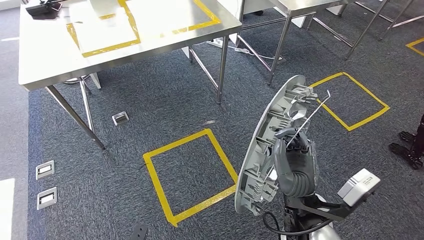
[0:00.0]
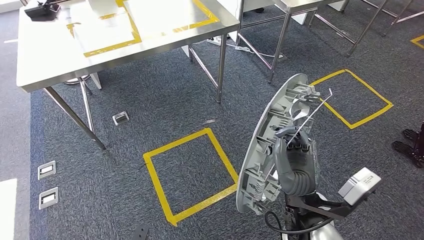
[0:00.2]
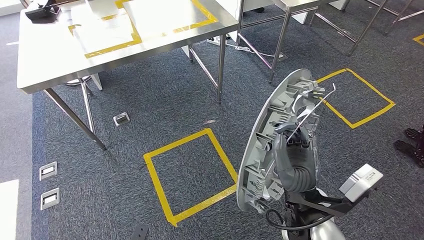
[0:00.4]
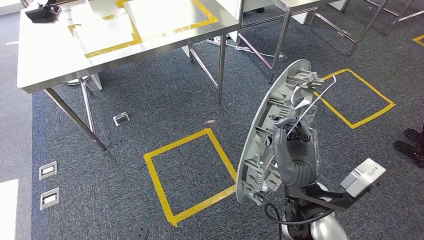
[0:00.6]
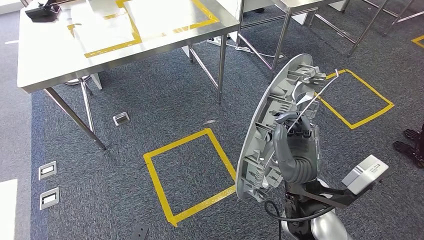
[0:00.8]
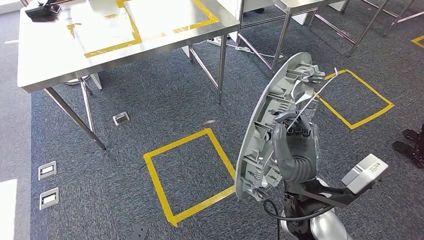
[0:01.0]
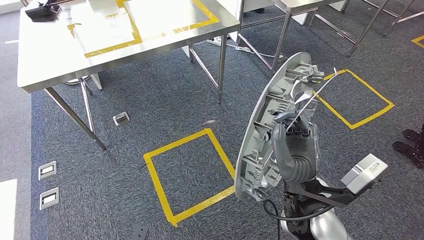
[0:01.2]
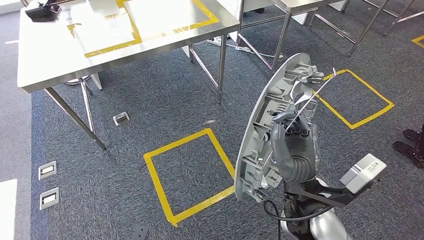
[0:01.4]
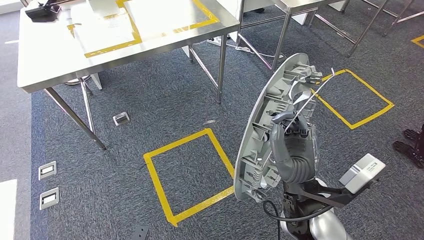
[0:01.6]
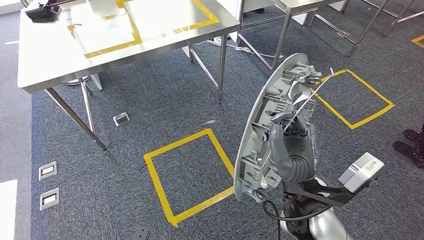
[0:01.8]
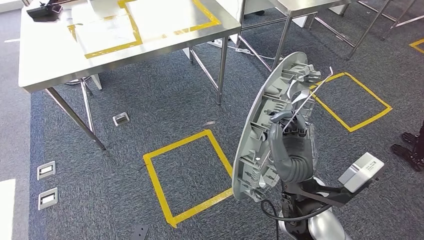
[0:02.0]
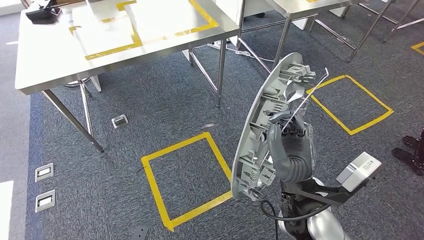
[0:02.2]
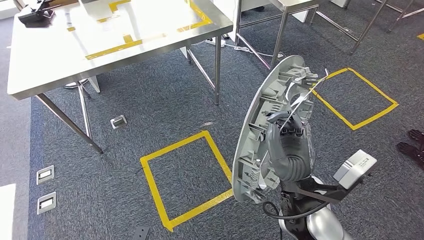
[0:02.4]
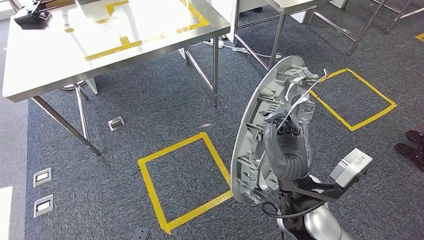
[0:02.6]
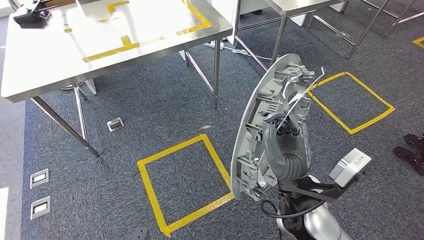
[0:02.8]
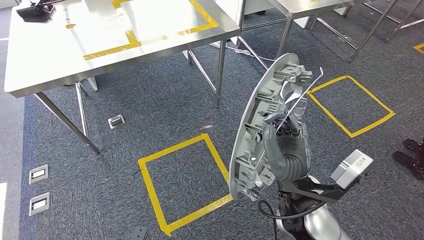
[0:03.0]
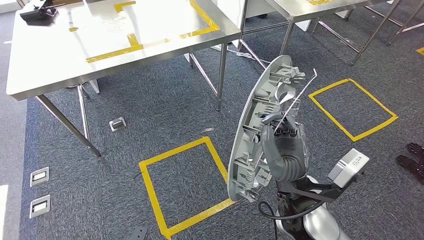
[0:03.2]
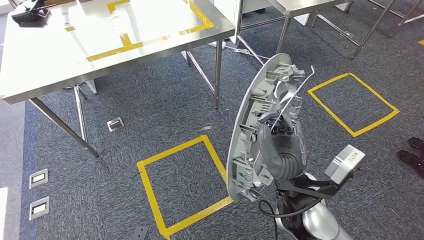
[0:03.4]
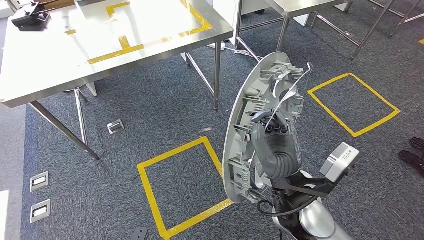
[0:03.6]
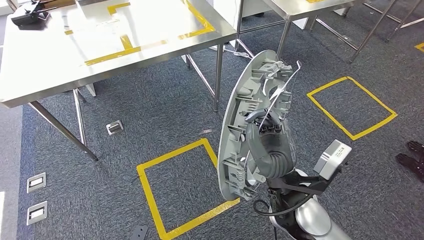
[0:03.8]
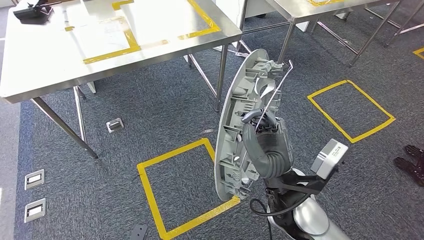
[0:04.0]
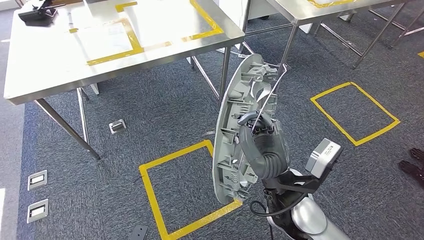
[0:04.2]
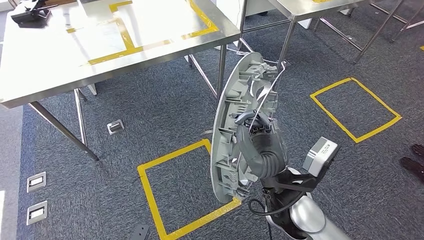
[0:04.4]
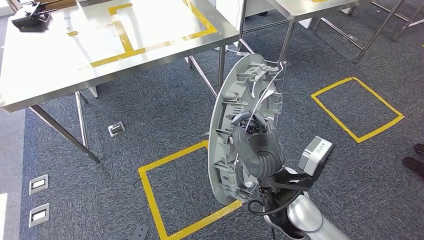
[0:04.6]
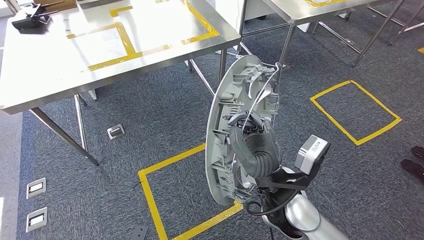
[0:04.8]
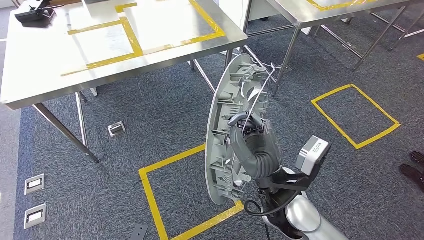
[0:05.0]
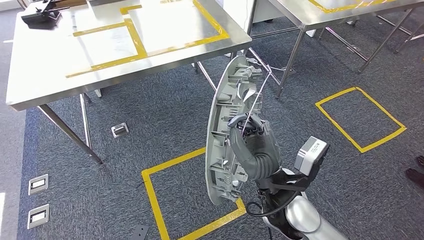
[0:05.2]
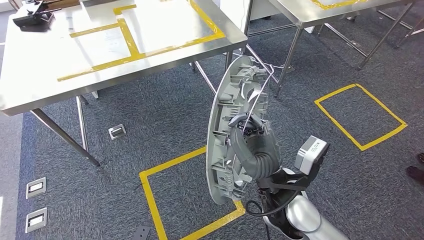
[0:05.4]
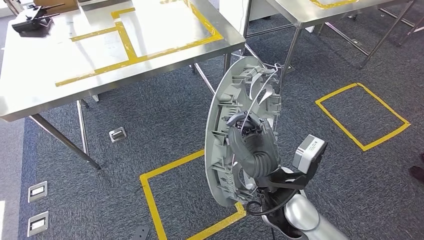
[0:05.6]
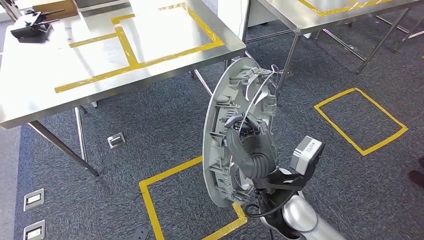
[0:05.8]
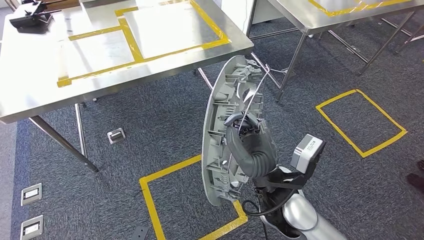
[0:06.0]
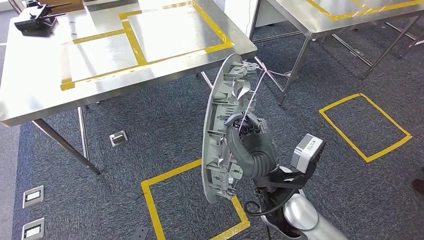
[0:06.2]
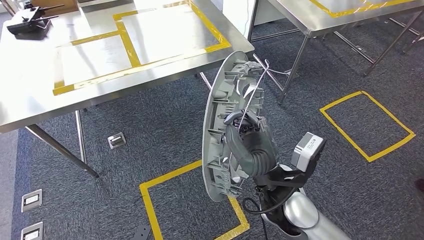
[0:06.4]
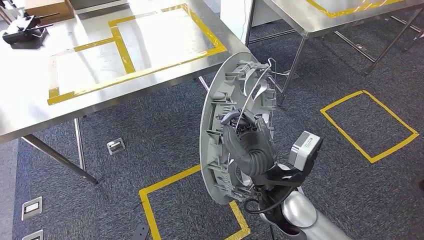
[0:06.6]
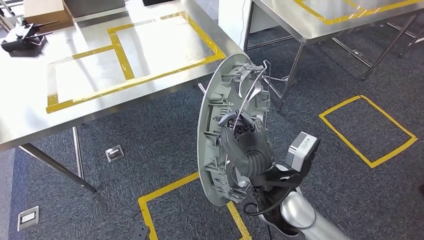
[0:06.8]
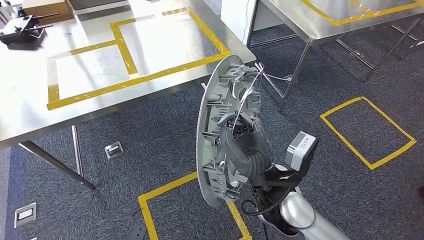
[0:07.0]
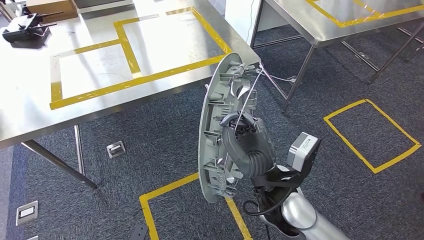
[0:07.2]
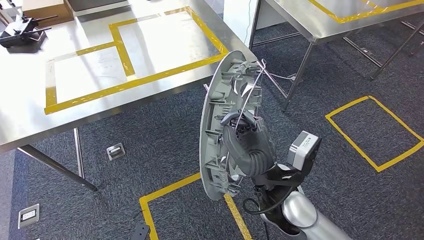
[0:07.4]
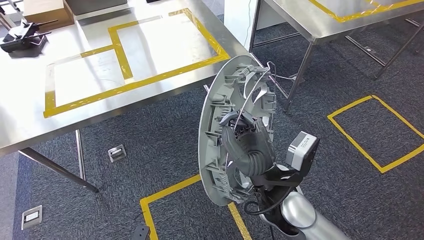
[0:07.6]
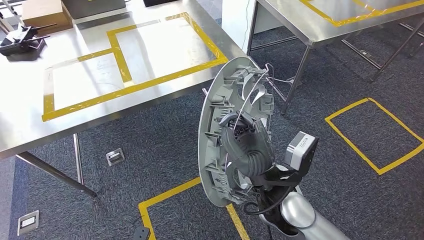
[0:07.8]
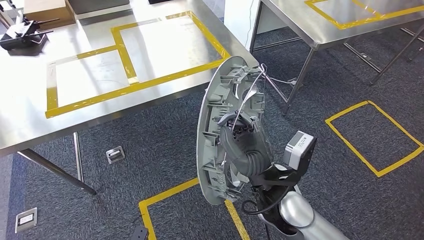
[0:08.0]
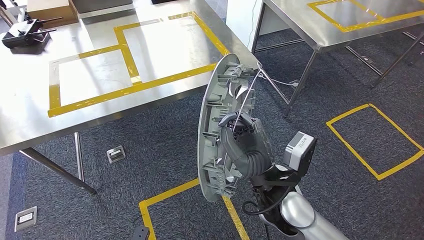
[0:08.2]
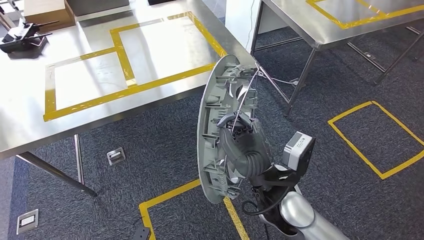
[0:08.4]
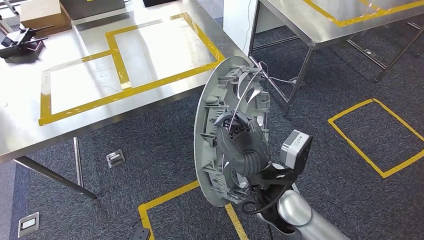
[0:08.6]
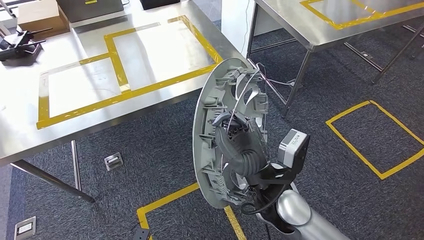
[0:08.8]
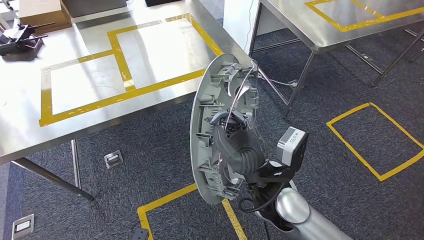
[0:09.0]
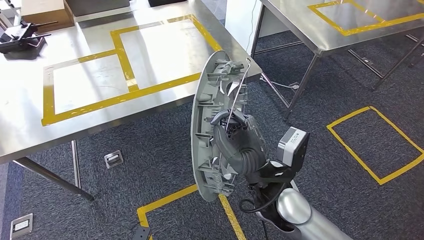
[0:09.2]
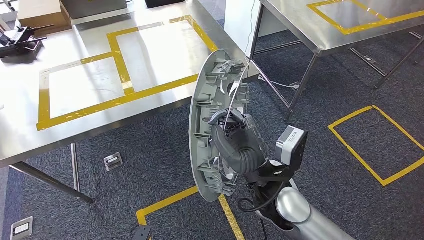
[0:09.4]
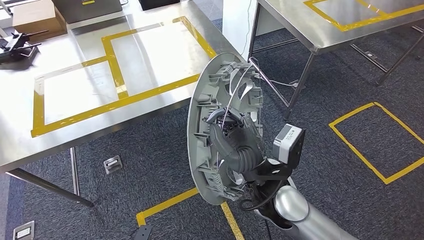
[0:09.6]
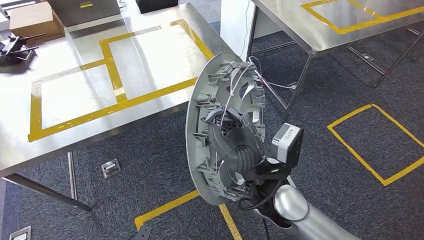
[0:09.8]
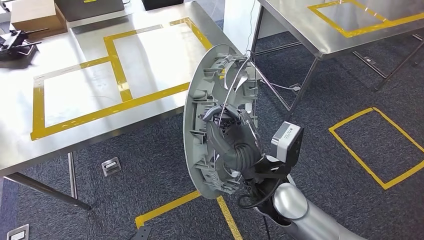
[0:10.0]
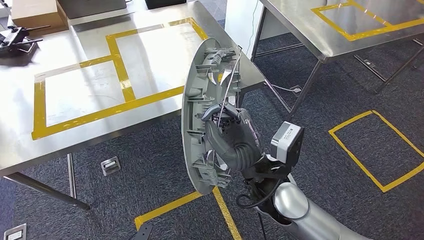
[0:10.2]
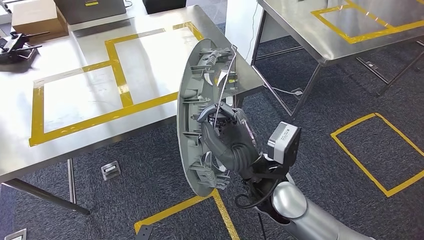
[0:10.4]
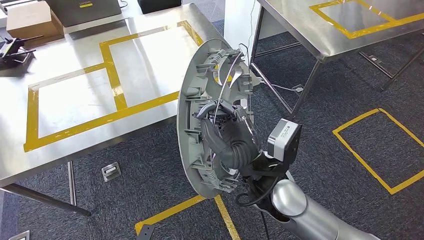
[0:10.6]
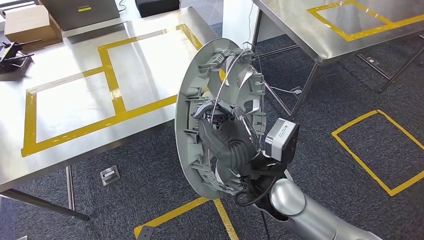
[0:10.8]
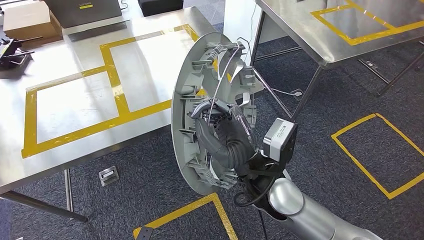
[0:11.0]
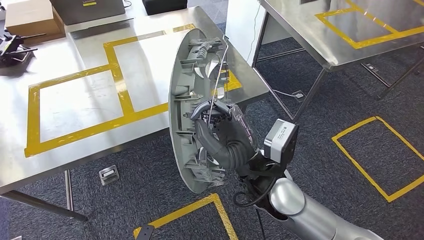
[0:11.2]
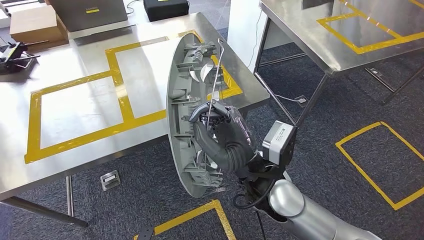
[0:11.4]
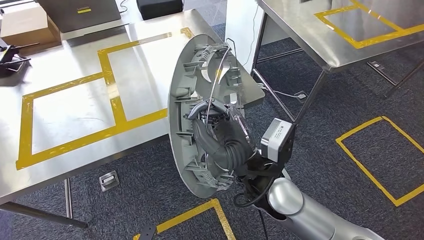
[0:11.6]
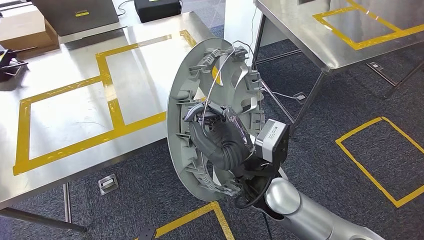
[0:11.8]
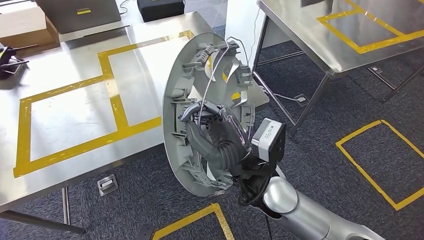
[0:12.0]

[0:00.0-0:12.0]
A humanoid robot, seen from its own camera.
0:00.0 to 0:01.6: The hands stay close to where they were, moving slightly.

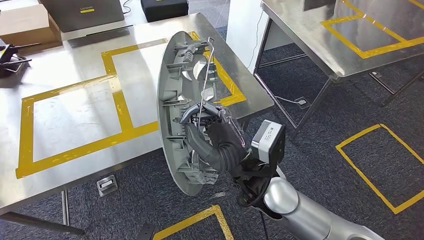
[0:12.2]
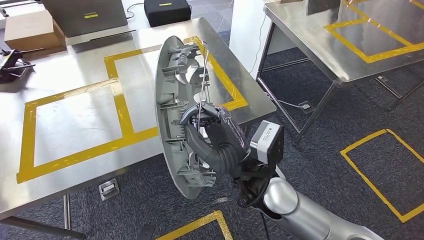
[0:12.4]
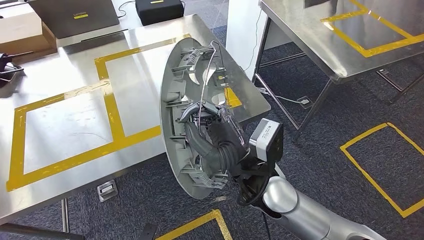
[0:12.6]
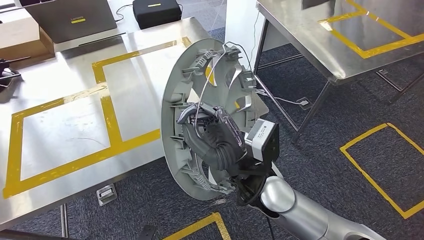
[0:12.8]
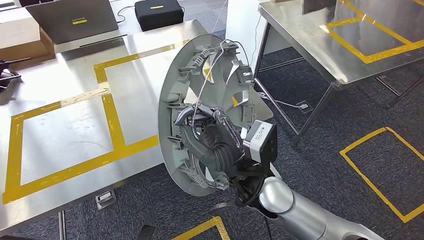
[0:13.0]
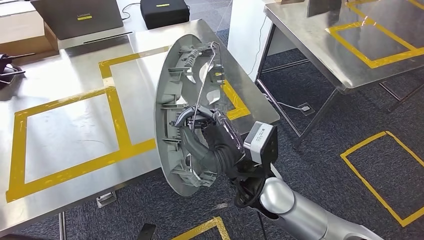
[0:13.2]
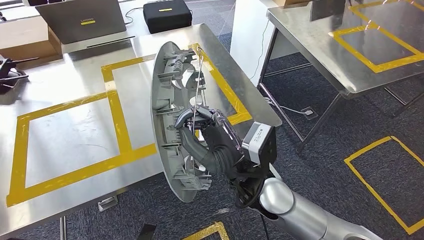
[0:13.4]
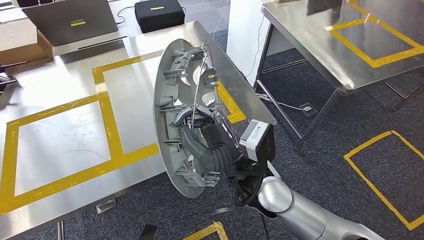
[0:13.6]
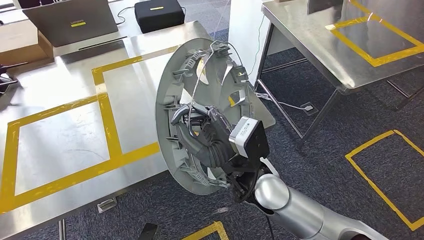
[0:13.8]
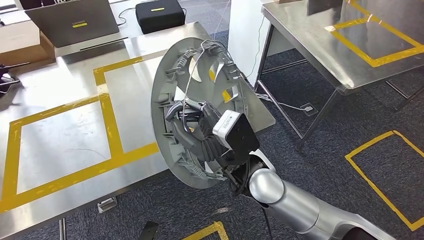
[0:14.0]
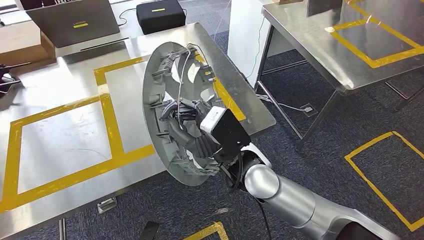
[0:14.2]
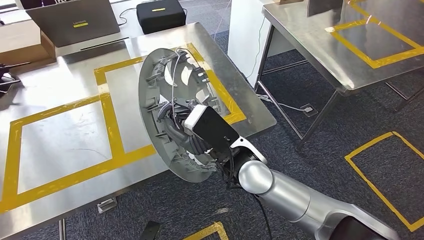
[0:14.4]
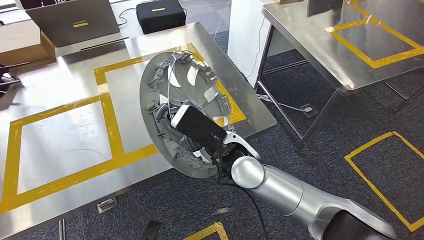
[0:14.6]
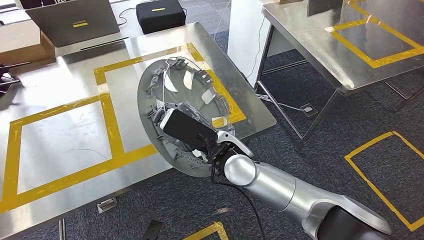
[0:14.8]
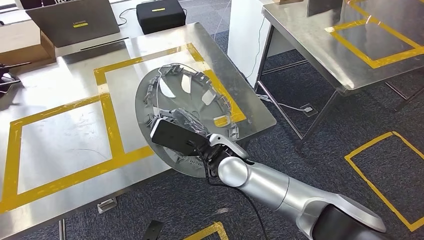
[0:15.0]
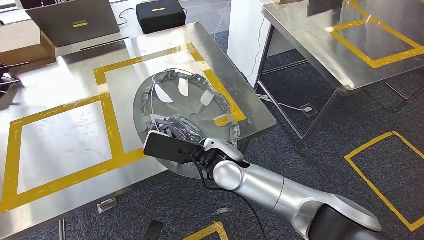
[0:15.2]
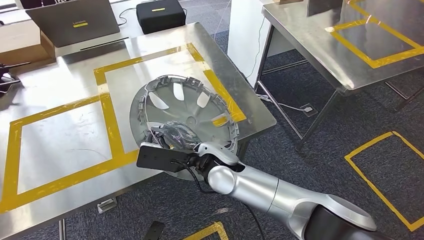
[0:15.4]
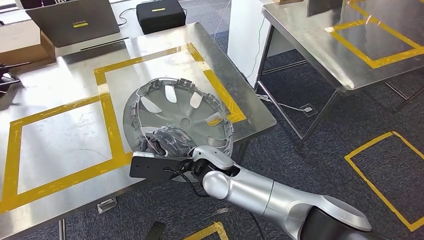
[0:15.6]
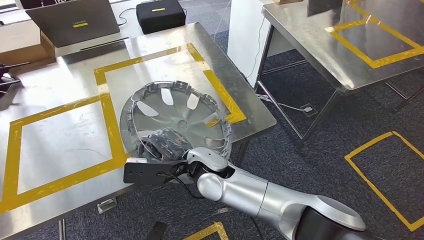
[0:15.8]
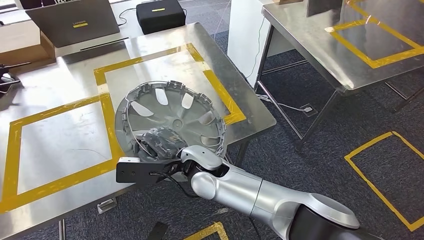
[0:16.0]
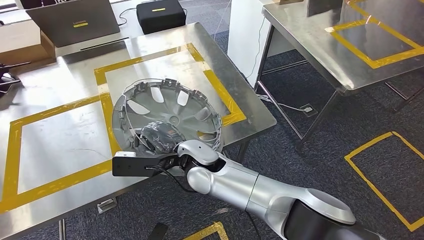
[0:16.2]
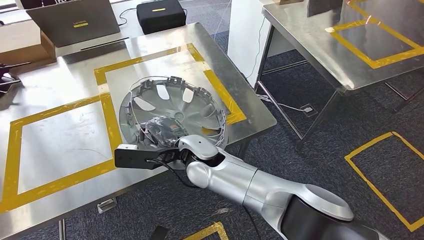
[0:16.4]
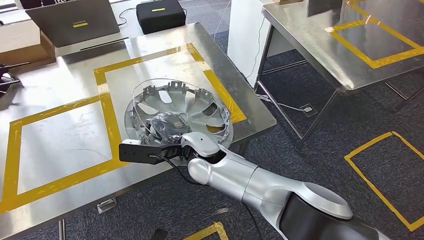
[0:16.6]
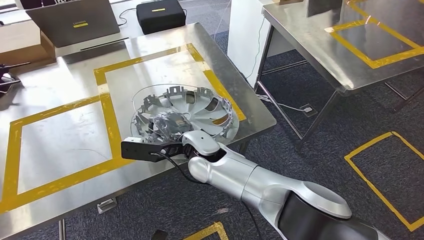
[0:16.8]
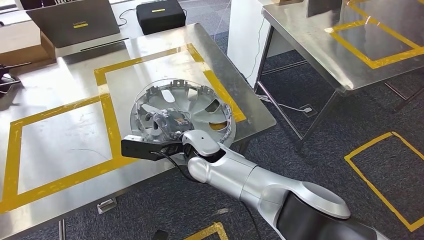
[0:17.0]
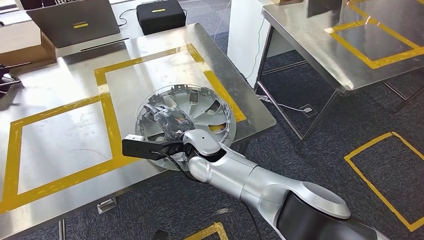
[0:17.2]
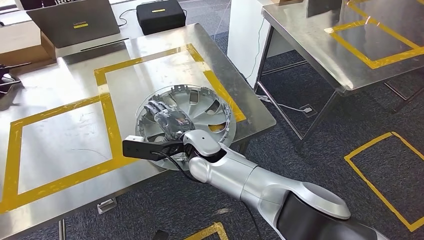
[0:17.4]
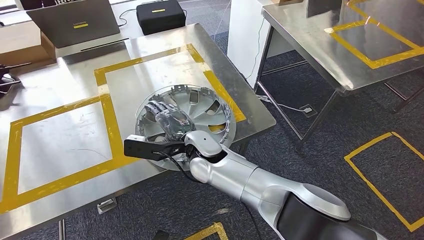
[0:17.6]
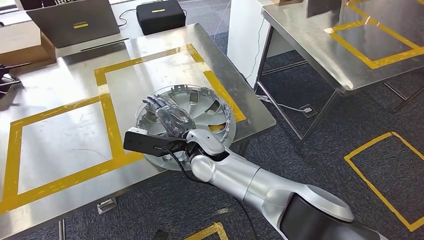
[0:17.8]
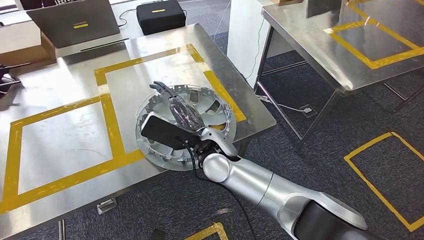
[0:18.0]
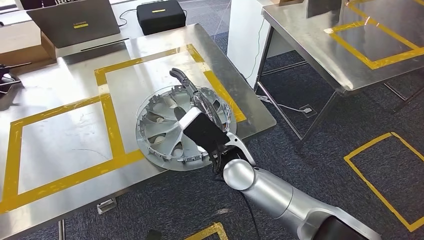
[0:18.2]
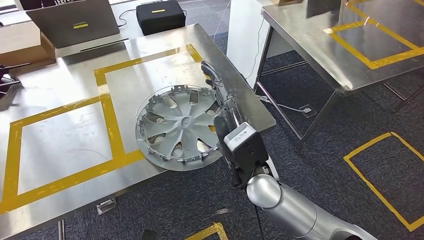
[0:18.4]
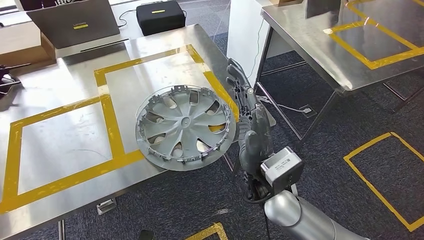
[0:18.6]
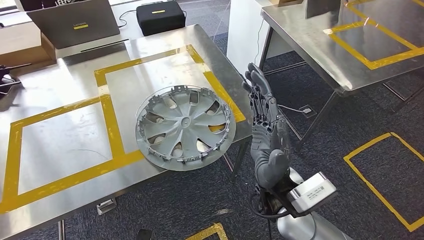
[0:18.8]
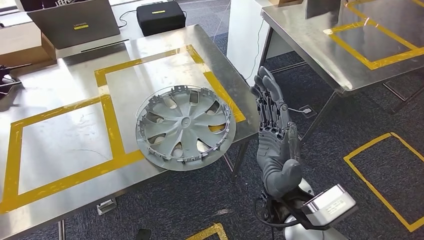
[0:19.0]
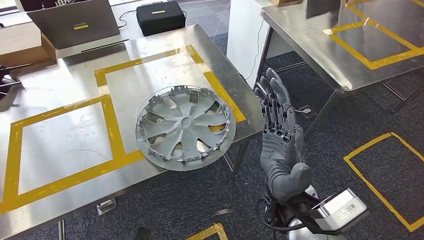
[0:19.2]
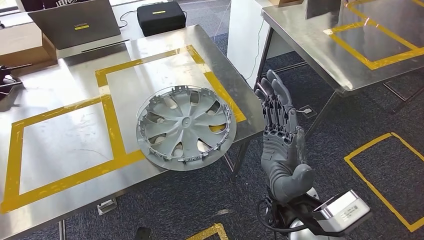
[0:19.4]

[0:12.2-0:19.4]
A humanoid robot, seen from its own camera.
0:15.0 to 0:16.6: The right hand moves to the left, approximately 5 cm.
0:18.0 to 0:19.4: The right hand heads backward and to the right, covering some 20 cm.
